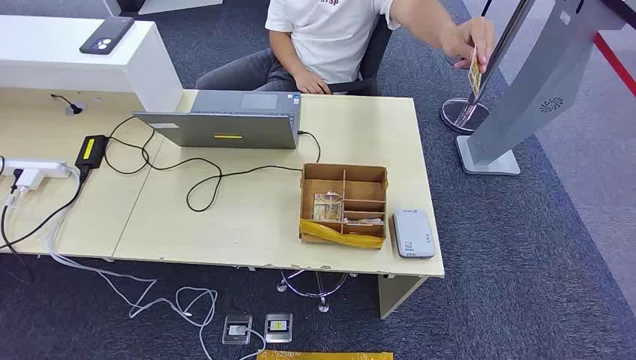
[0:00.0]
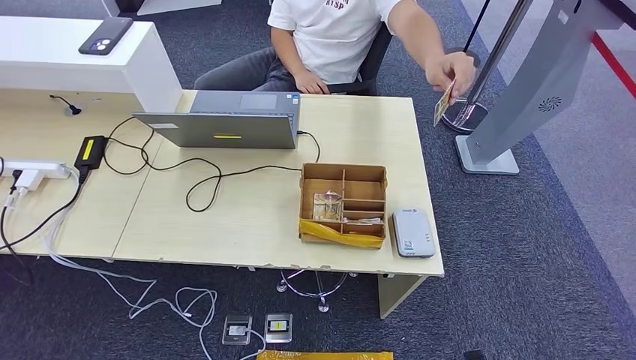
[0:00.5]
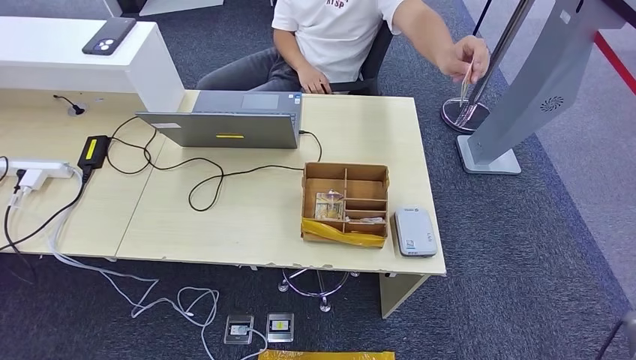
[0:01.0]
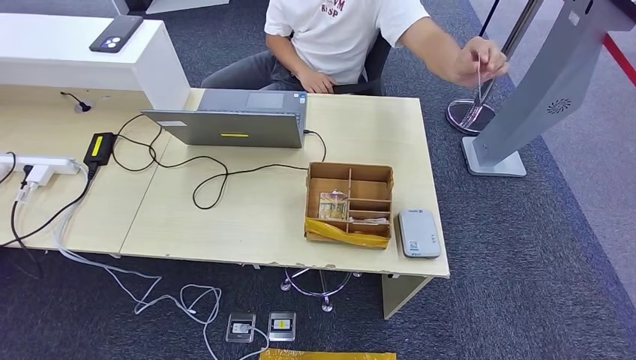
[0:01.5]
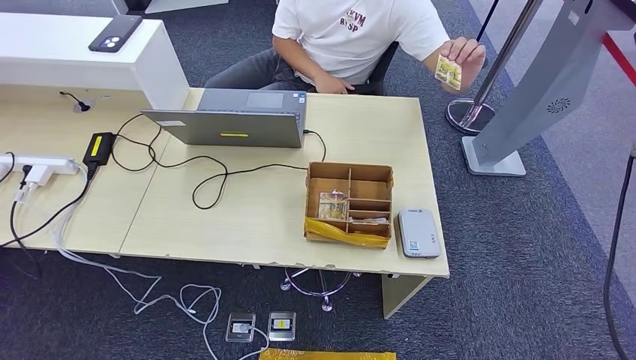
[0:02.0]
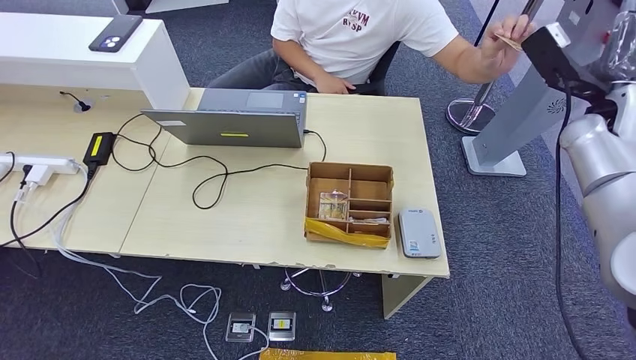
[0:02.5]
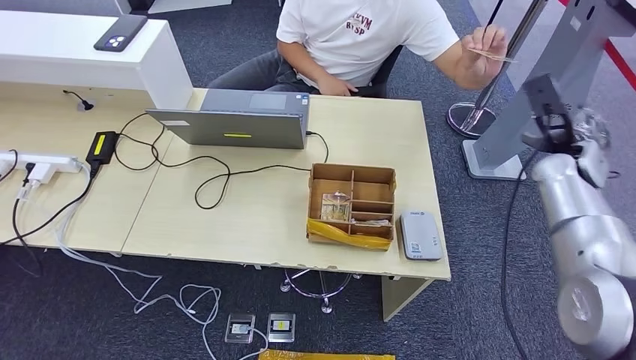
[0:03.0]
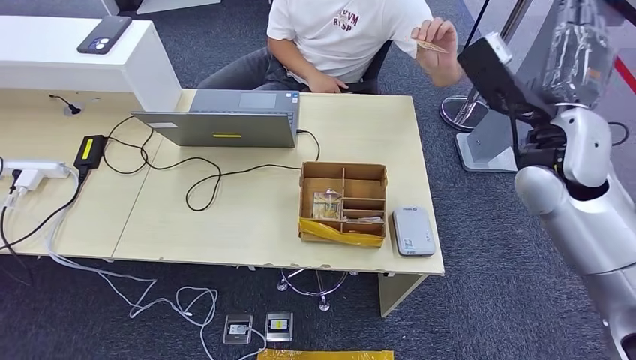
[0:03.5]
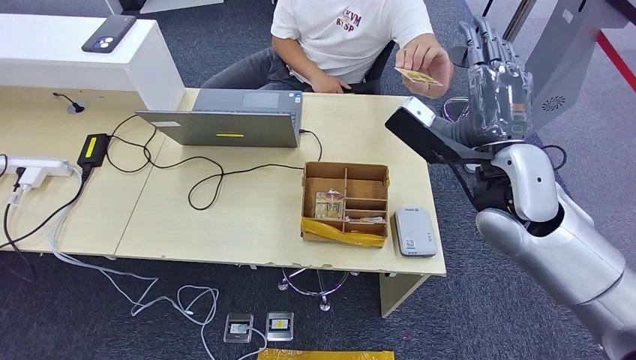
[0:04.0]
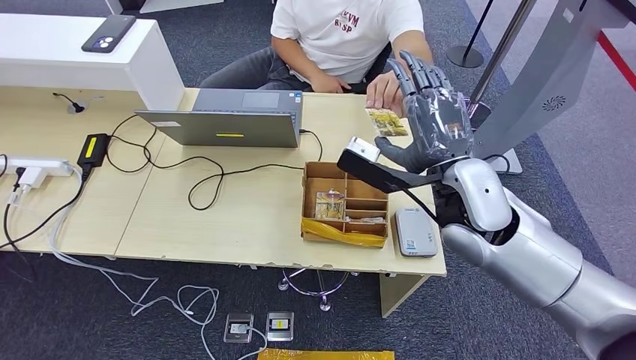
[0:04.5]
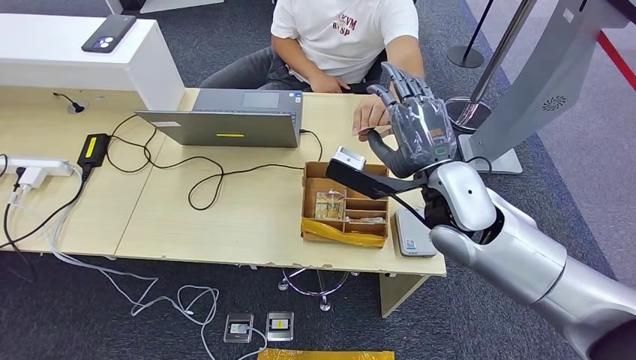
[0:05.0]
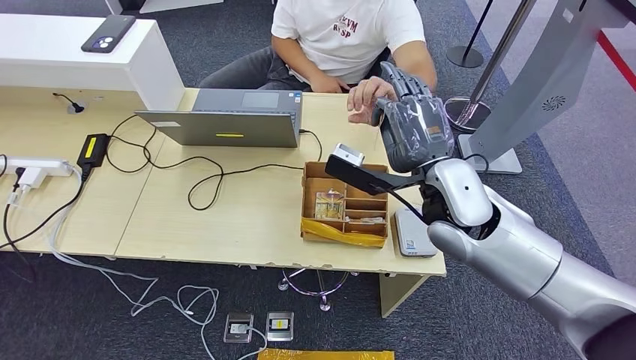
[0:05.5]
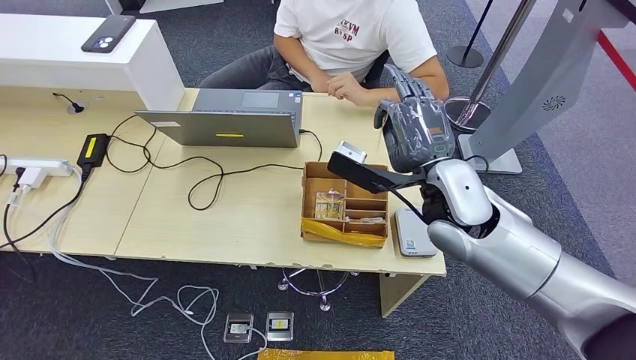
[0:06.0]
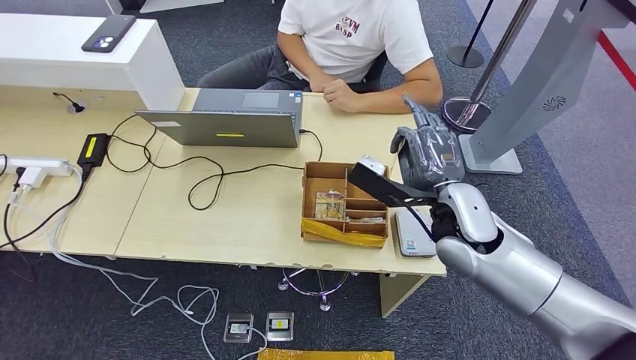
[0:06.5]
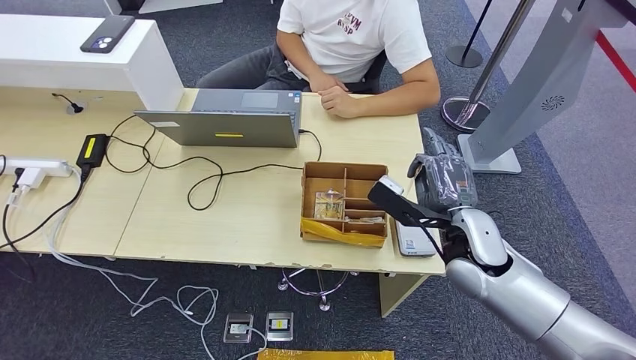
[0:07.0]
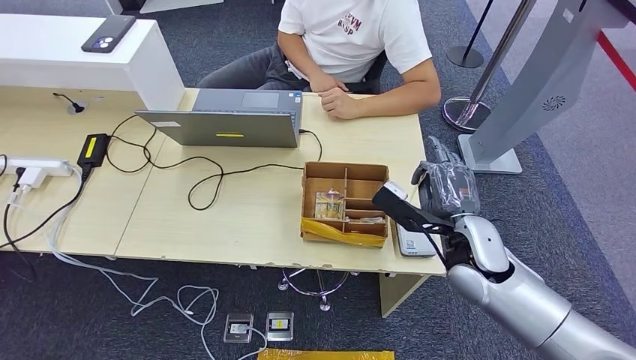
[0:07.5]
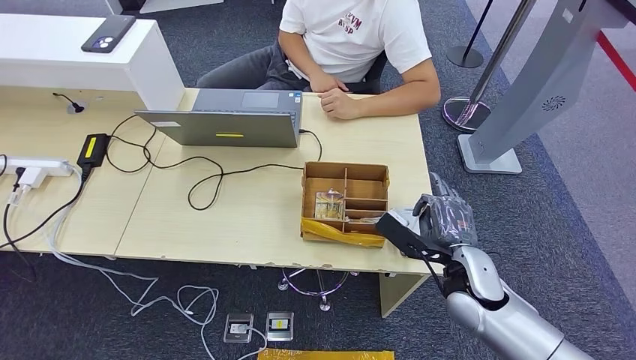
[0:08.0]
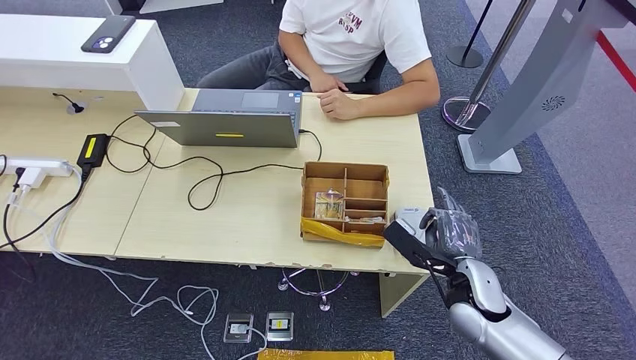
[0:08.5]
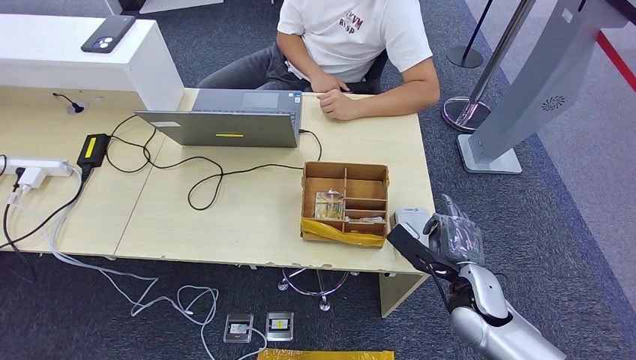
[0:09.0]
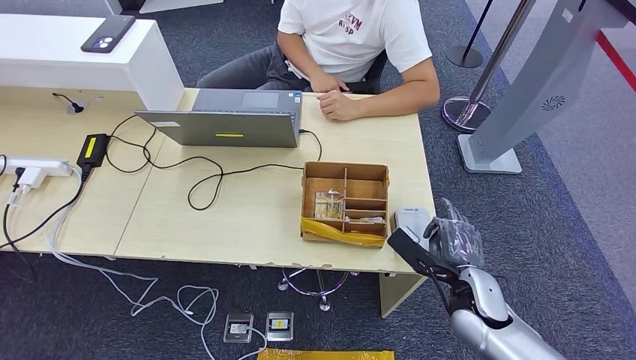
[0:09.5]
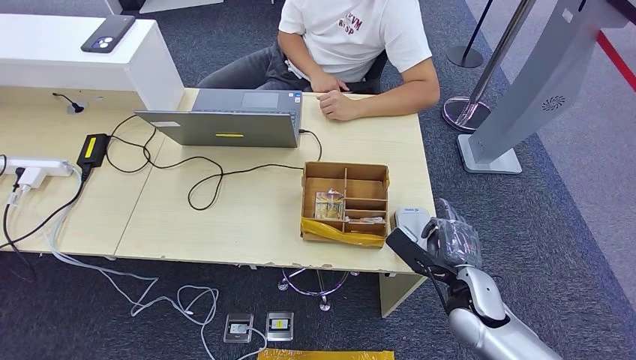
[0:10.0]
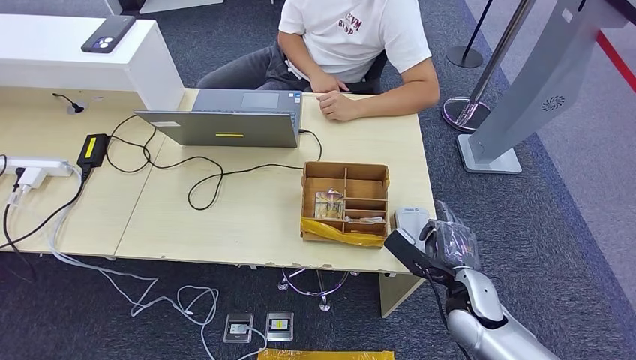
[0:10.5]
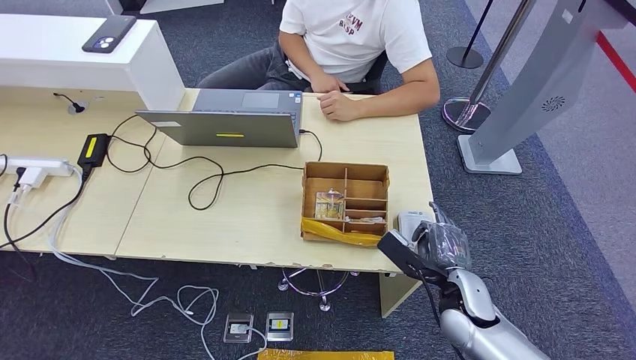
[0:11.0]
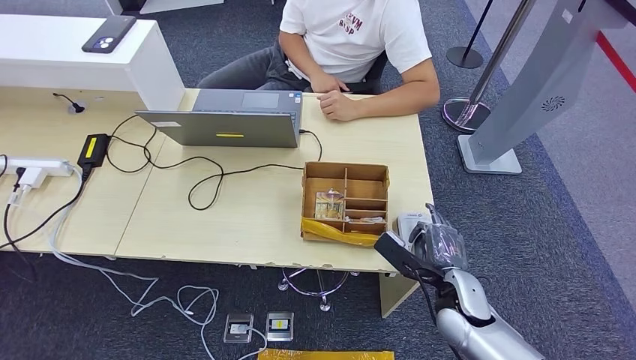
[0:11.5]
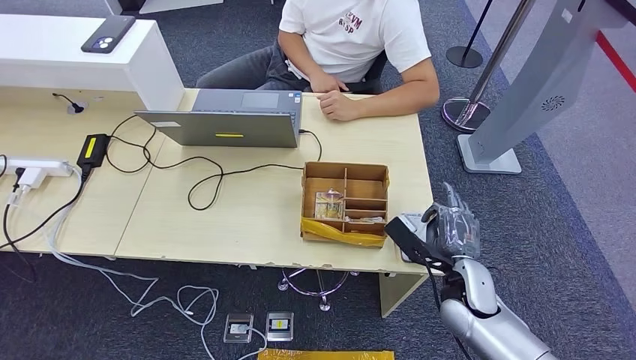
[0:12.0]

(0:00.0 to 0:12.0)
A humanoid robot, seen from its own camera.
Step, 0:00.0 - 0:06.0: Take the ID card from the person's hand.
Step, 0:06.5 - 0:08.5: Place the ID card on the card reader.
0:04.0 - 0:06.0: The right hand is displaced to the left by approximately 5 cm.
0:06.0 - 0:08.0: The right hand shifts roughly 15 cm downward and to the right.
0:08.0 - 0:10.0: The right hand moves roughly 5 cm.
0:10.0 - 0:12.0: The hands move only a little.

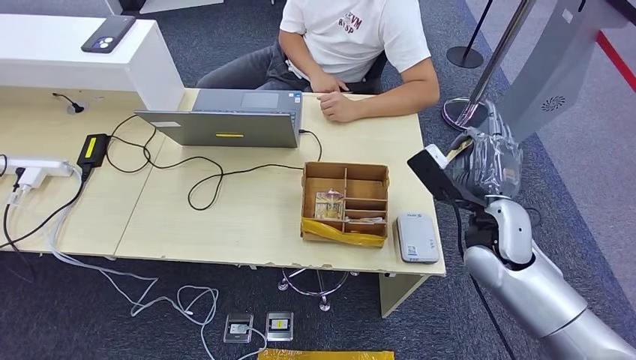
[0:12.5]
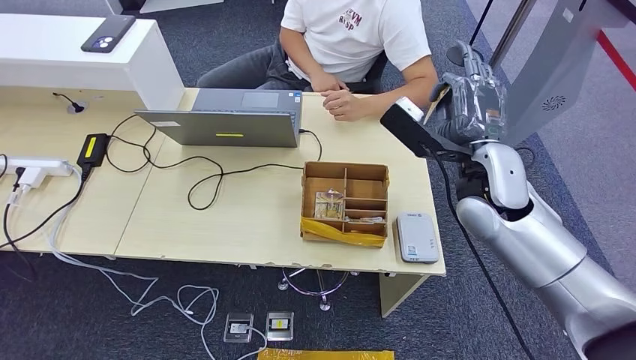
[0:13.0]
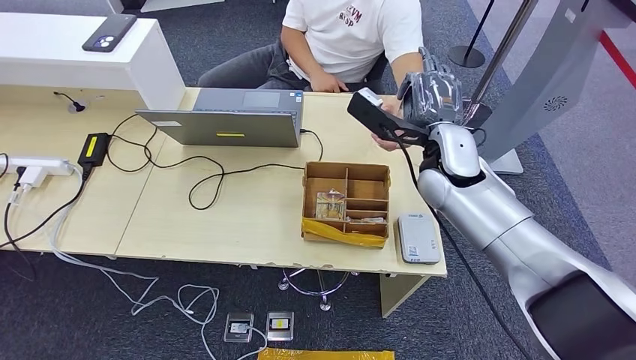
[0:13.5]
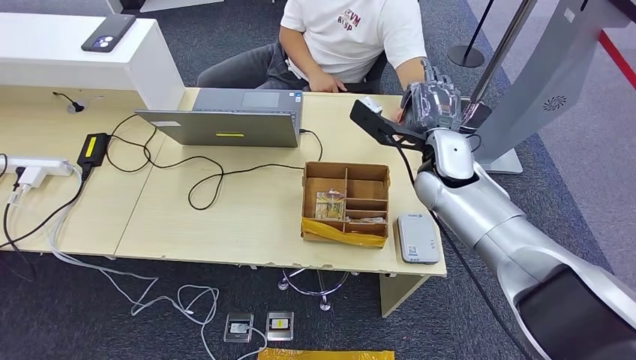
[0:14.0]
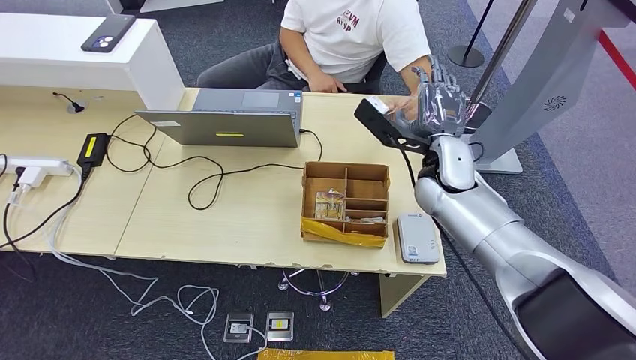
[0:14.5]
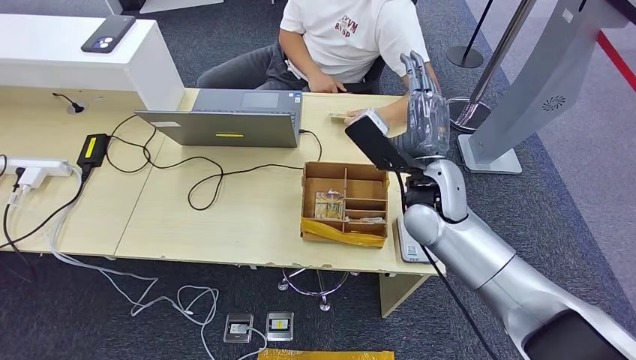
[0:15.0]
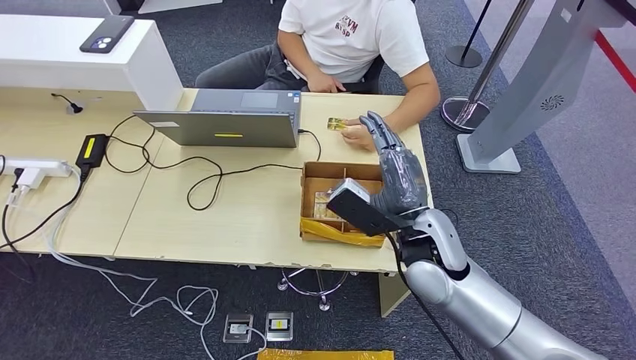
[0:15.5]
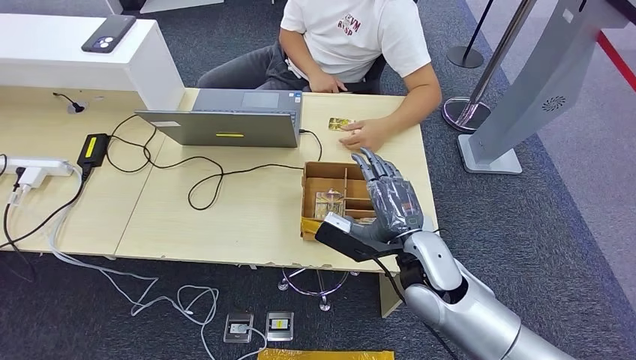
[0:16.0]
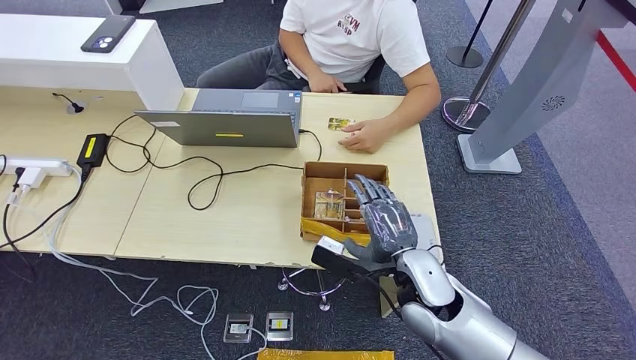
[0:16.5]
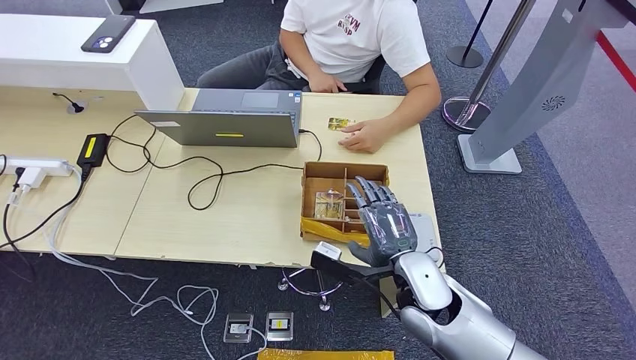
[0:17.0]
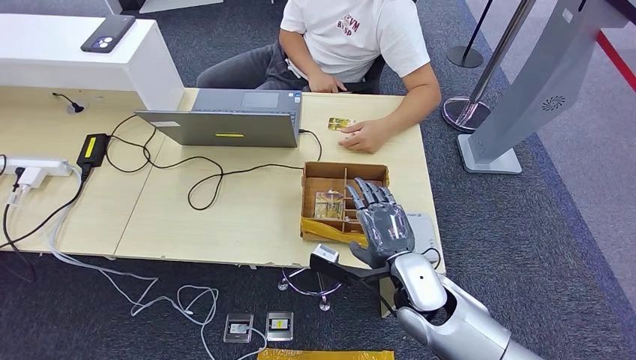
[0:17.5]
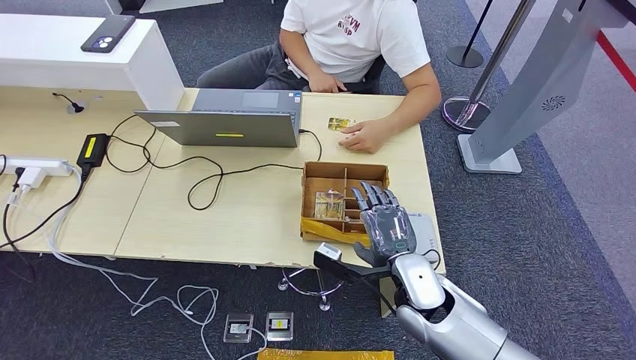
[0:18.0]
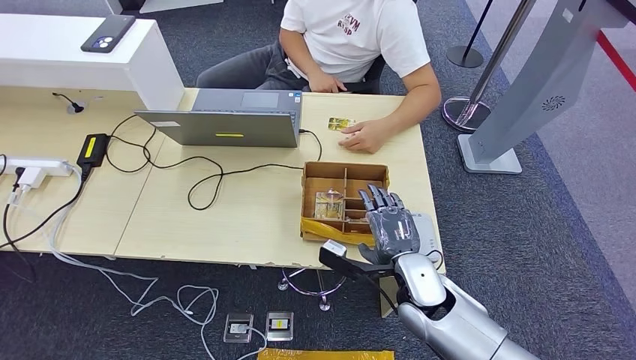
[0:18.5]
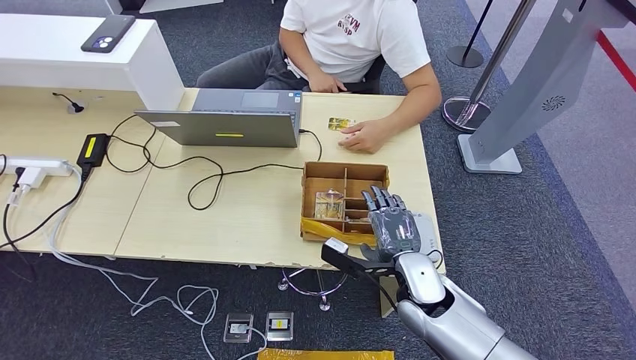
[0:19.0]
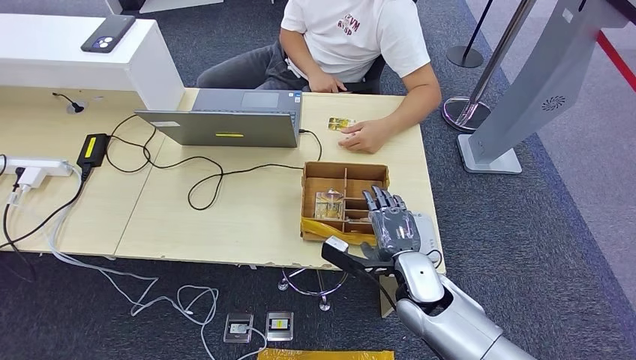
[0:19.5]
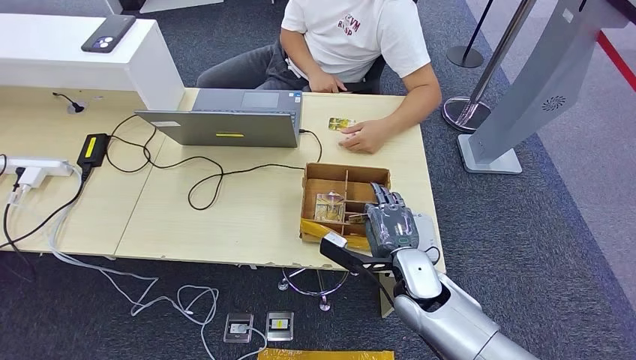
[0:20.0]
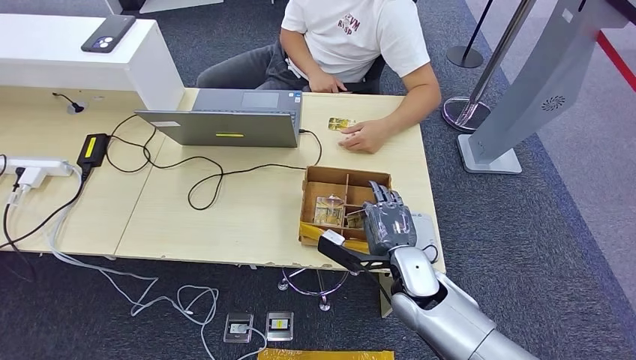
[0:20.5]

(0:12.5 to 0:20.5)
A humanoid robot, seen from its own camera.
Step, 0:12.5 - 0:14.5: Hand the ID card to the person.
Step, 0:15.0 - 0:20.5: Pick up the room key from the key card box.
0:12.5 - 0:14.5: The right hand goes some 10 cm forward and to the left.
0:14.5 - 0:16.5: The right hand moves backward and downward, some 20 cm.
0:16.5 - 0:20.5: The hands move only a little.
